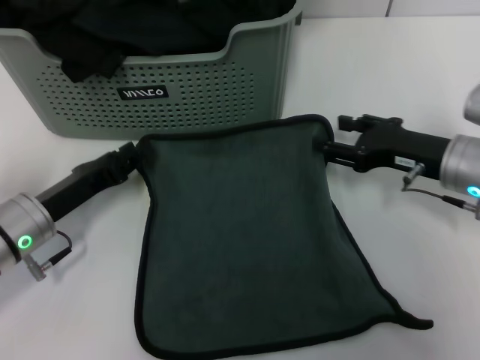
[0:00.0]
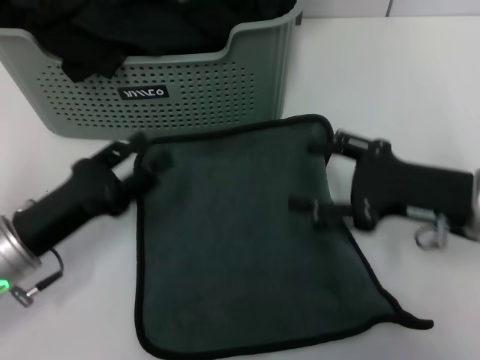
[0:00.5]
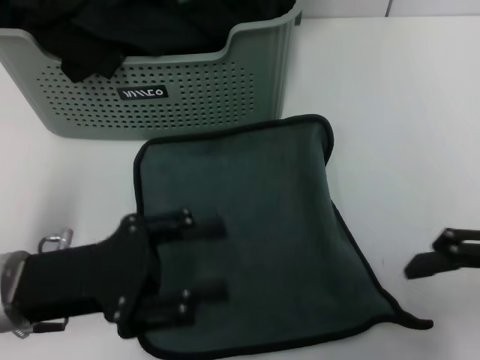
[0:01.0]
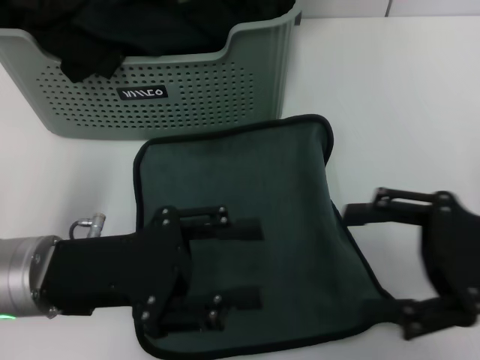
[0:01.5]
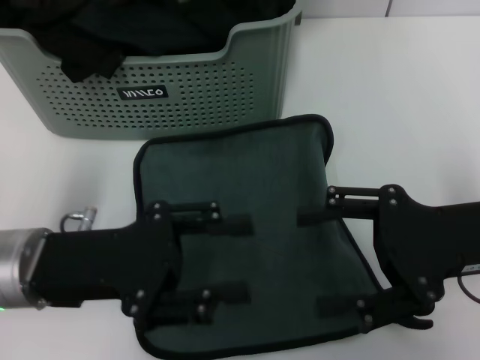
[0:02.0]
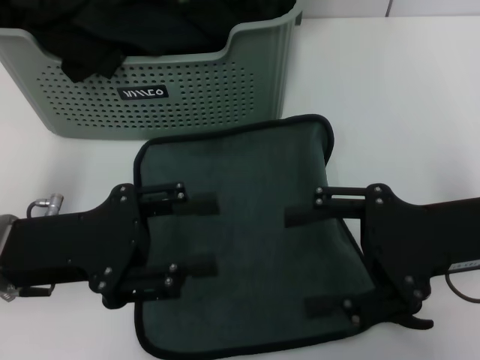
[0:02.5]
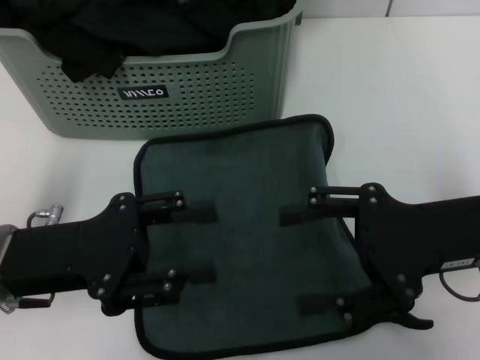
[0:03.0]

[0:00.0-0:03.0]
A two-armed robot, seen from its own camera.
Task of the whole recording: pick up the towel from the storage box and lay it flat on the table.
0:00.0 to 0:01.5: The left gripper shifts about 10 cm upward, backward and to the right, and opens up; the right gripper travels backward and upward by some 10 cm, and opens.
0:01.5 to 0:03.0: The grippers stay close to where they were, moving slightly.
